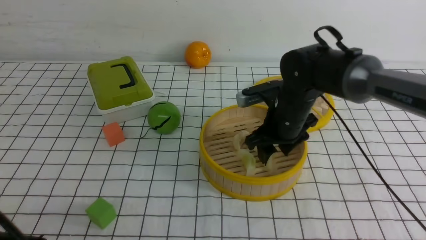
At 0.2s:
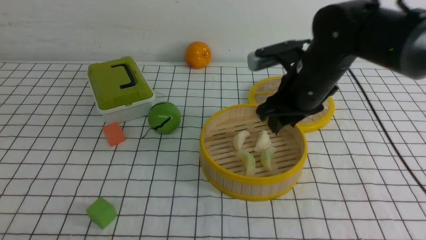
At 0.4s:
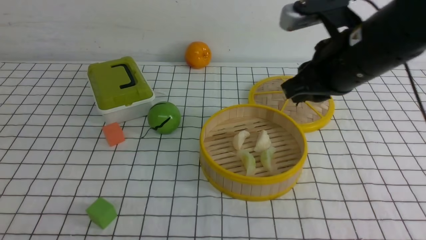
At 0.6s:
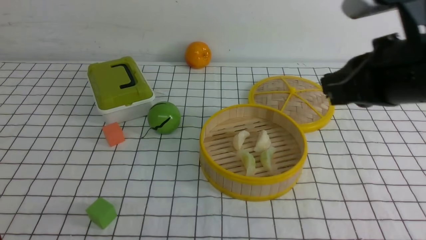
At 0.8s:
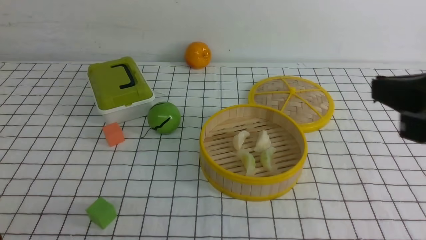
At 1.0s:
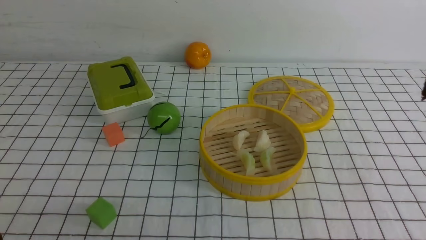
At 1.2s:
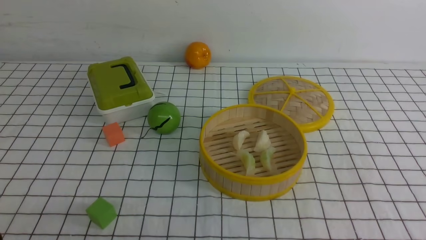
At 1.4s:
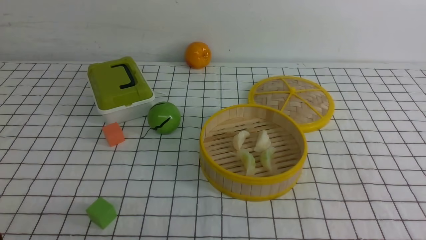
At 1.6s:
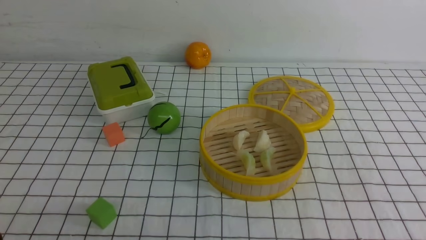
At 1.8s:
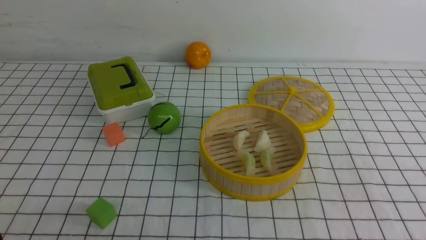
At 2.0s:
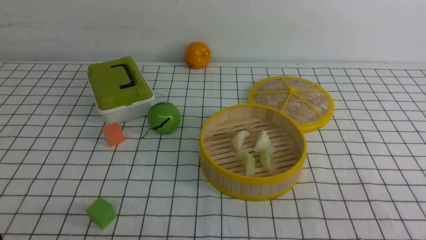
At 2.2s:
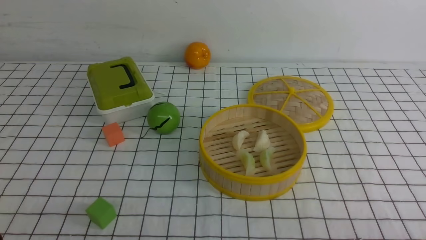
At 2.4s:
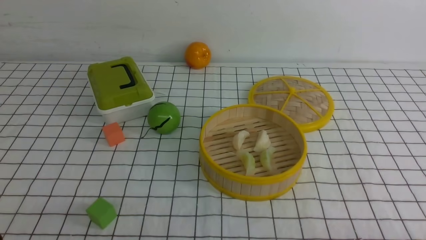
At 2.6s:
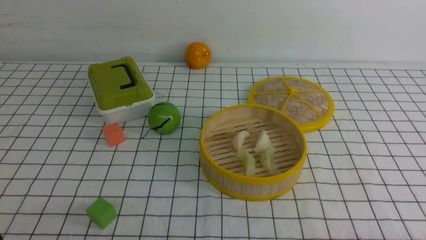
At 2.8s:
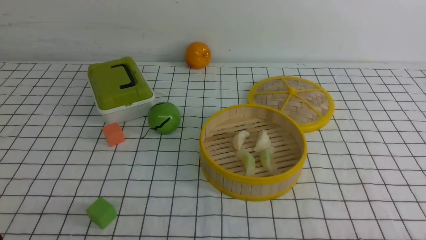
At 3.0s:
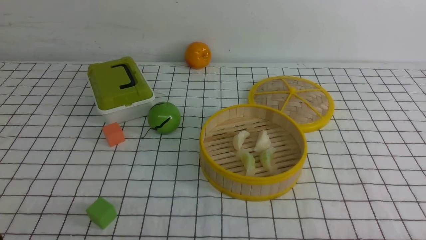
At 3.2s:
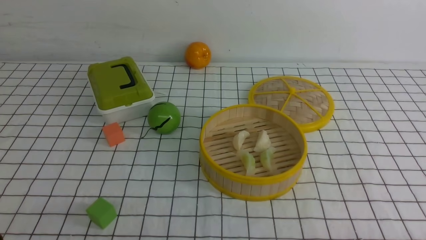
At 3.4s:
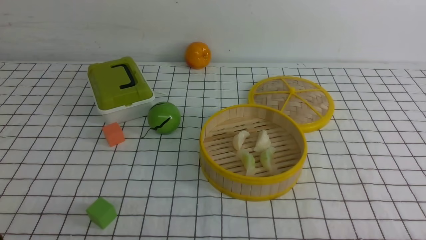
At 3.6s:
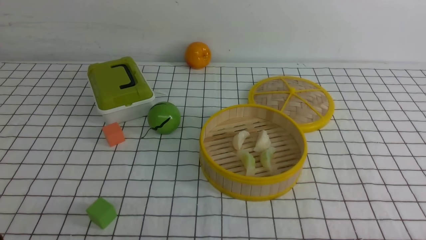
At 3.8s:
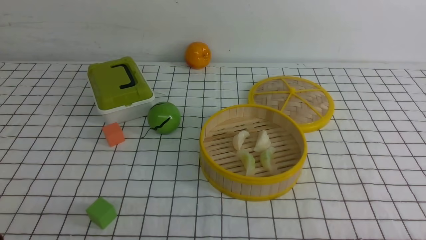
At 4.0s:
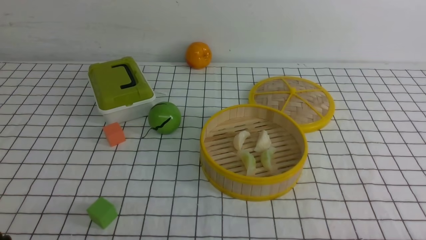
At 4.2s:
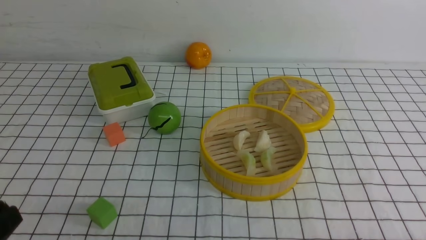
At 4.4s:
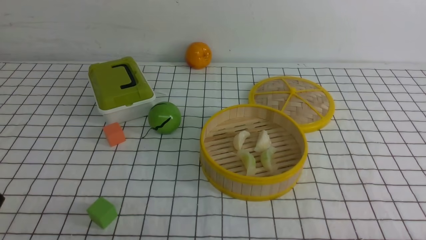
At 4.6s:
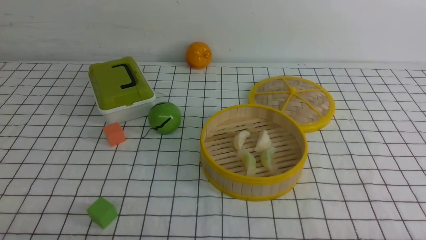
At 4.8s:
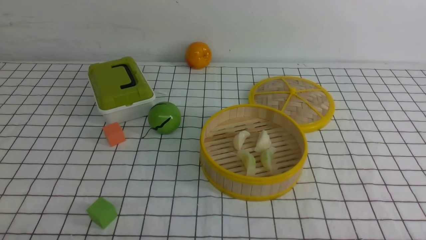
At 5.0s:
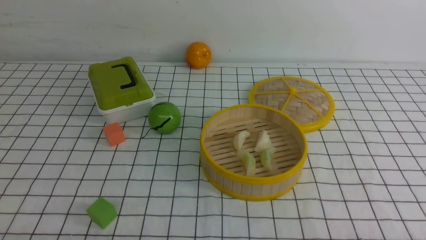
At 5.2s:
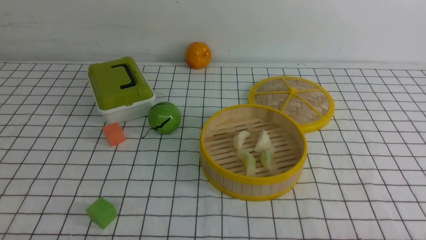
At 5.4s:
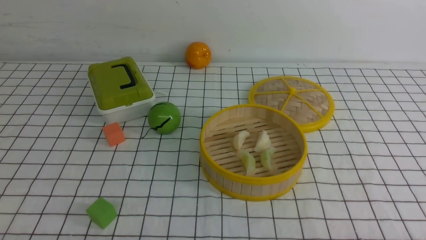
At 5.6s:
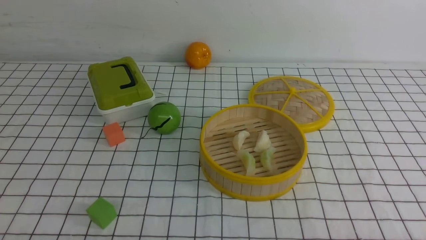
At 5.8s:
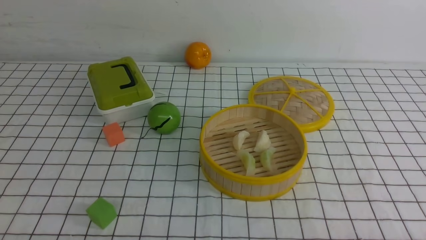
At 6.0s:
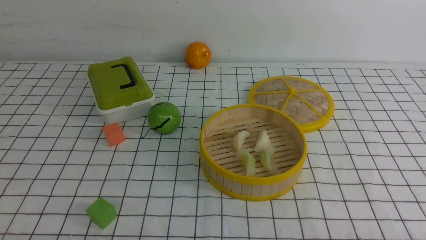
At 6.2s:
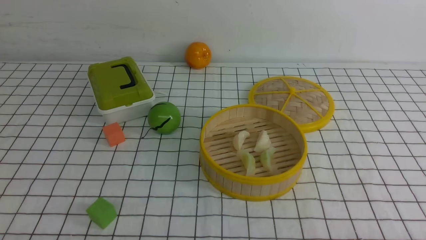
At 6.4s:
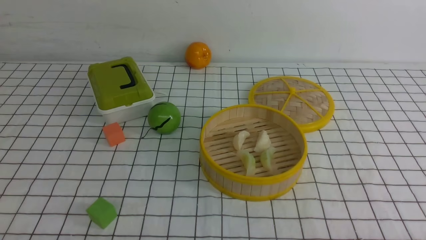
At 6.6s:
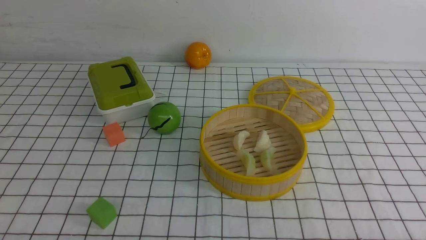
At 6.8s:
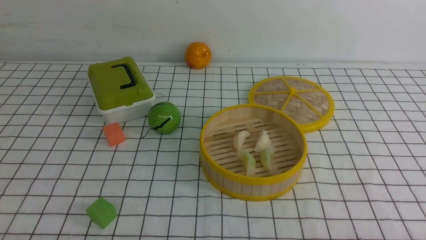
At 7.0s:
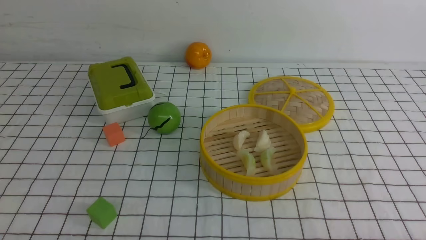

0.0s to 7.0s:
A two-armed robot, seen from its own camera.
Task of the whole recording: put the dumplings into the steamer on the table with the white tablecloth.
0.0s to 1.4s: The left gripper ends up roughly 5 cm from where it was, while the right gripper heads backward, upward and to the right, covering approximately 35 cm, and closes.
5.6s to 7.0s: Both grippers stay about where they are.

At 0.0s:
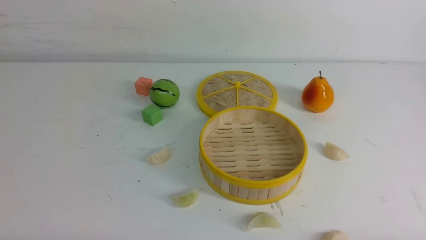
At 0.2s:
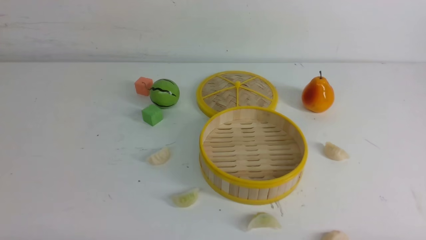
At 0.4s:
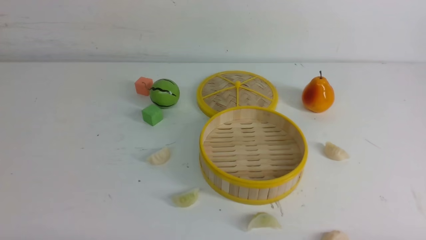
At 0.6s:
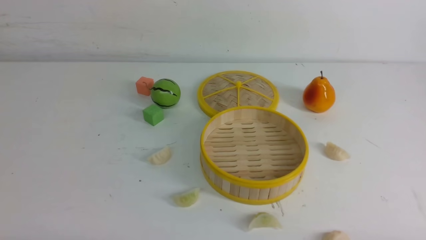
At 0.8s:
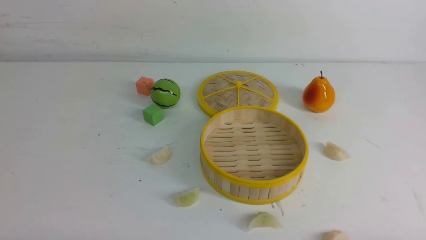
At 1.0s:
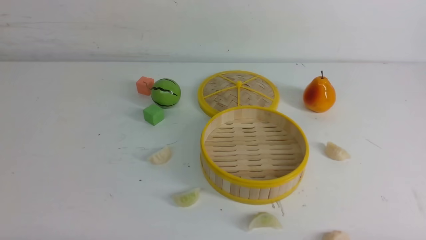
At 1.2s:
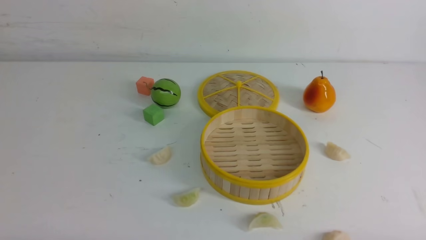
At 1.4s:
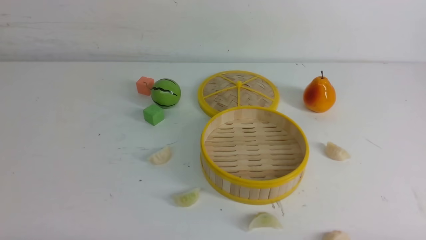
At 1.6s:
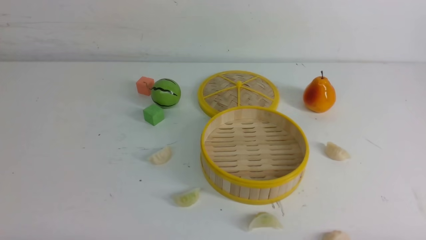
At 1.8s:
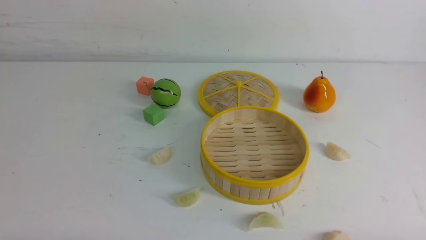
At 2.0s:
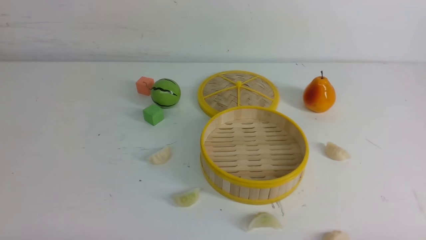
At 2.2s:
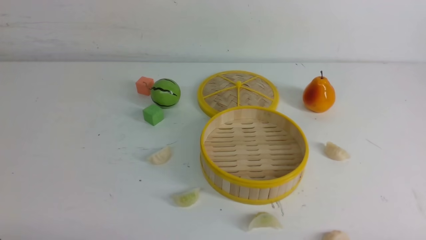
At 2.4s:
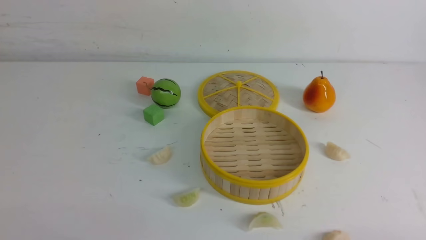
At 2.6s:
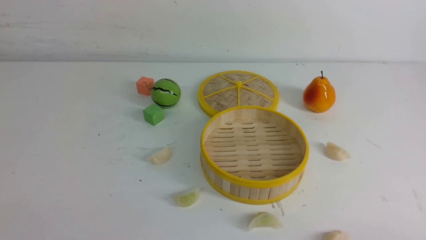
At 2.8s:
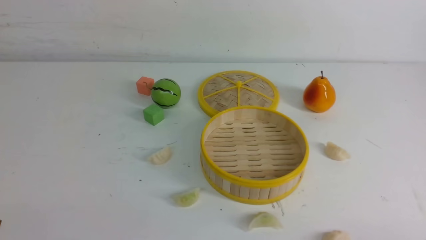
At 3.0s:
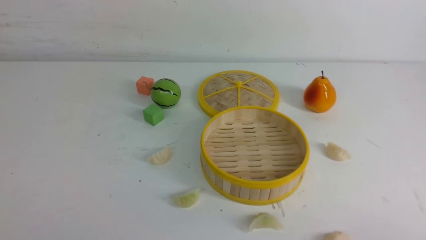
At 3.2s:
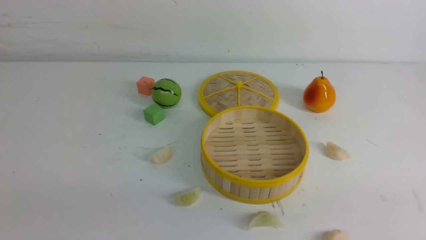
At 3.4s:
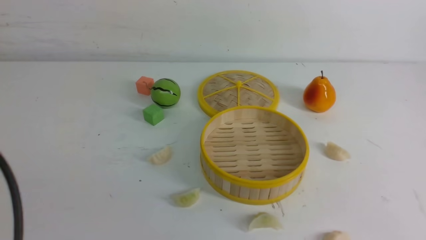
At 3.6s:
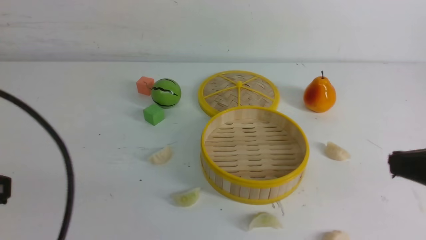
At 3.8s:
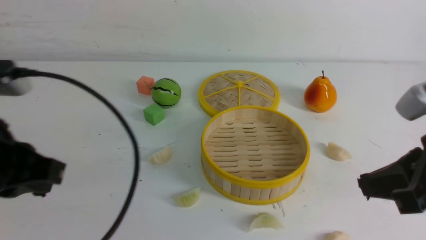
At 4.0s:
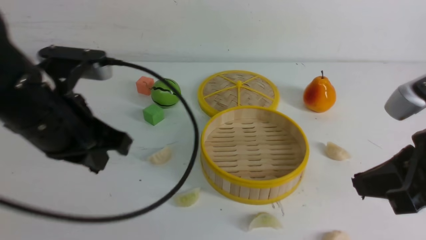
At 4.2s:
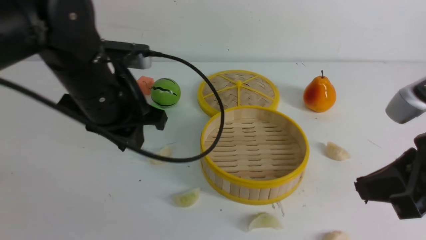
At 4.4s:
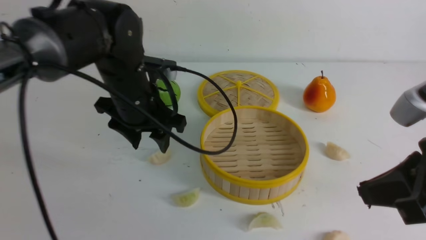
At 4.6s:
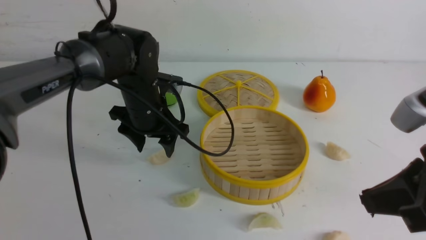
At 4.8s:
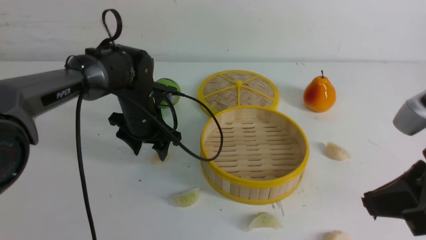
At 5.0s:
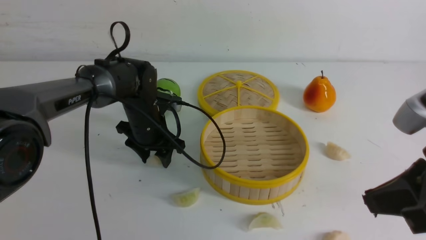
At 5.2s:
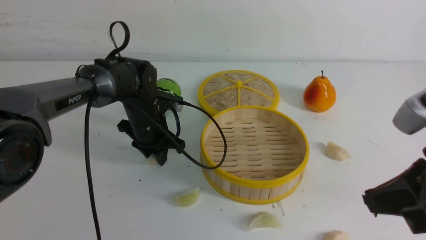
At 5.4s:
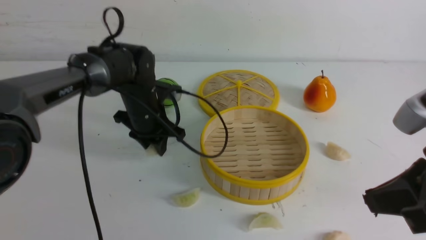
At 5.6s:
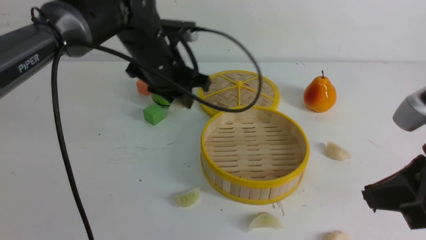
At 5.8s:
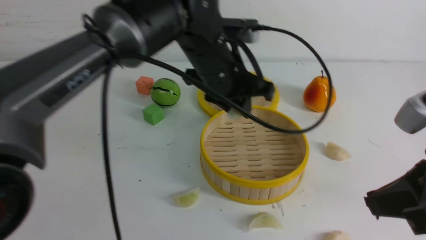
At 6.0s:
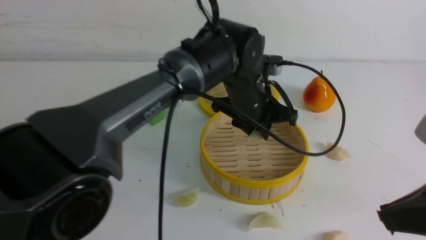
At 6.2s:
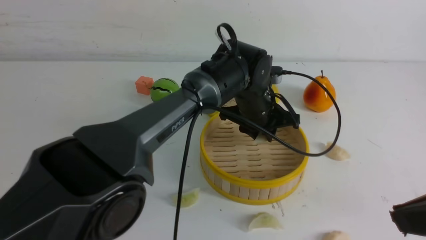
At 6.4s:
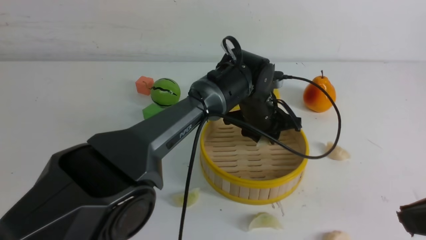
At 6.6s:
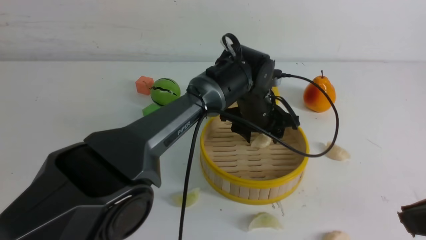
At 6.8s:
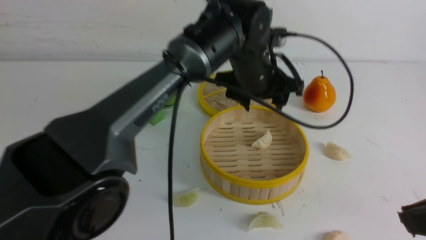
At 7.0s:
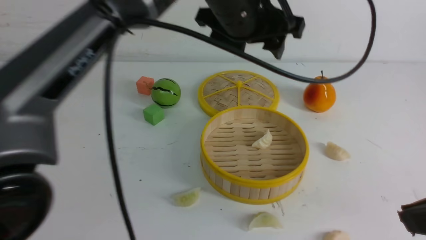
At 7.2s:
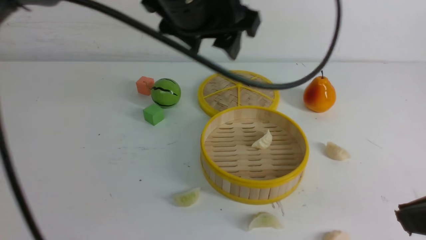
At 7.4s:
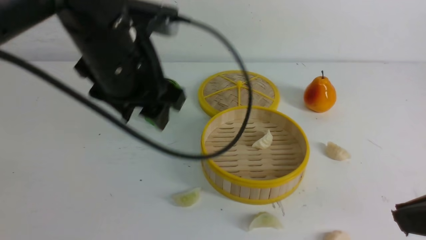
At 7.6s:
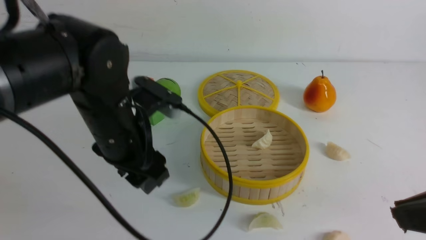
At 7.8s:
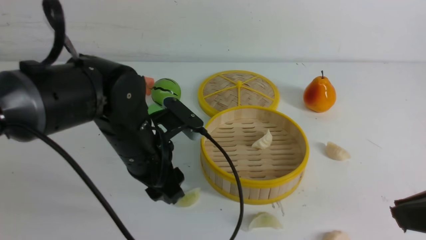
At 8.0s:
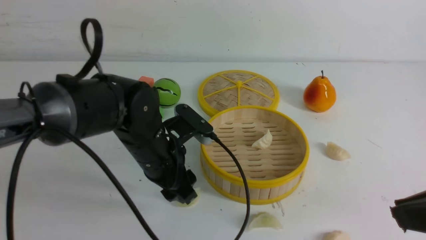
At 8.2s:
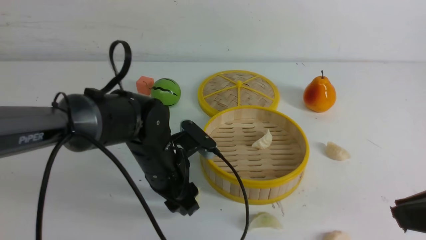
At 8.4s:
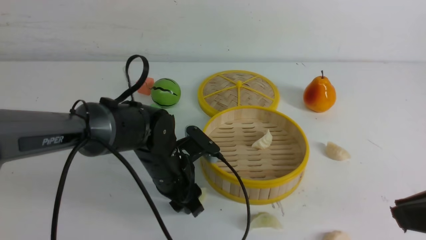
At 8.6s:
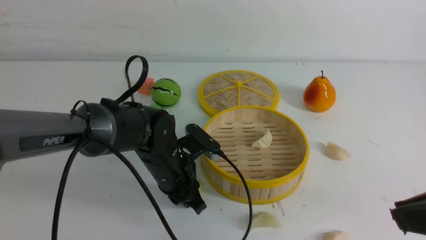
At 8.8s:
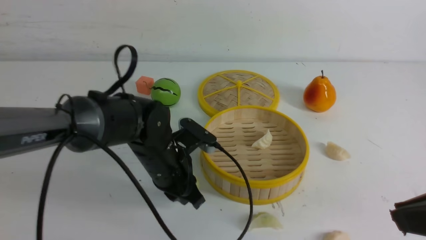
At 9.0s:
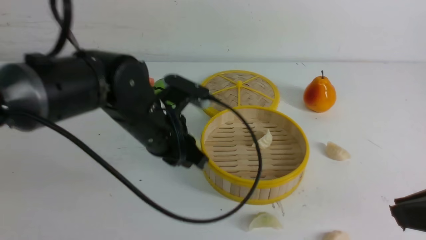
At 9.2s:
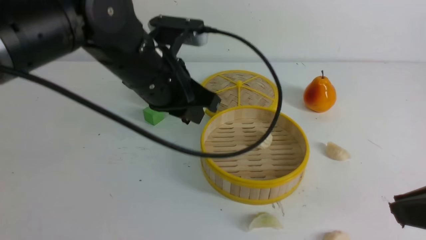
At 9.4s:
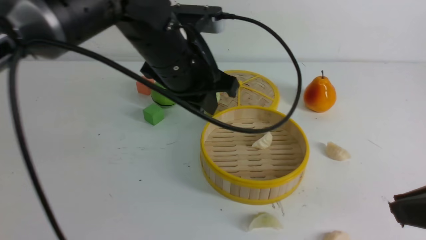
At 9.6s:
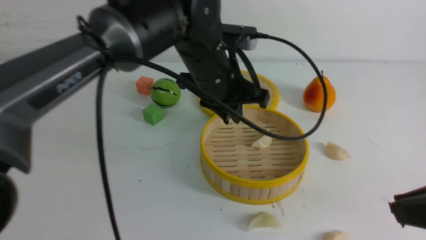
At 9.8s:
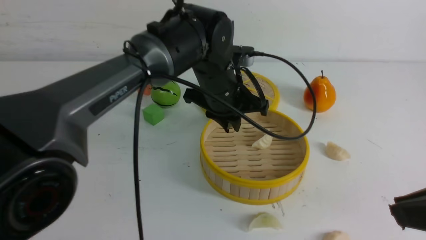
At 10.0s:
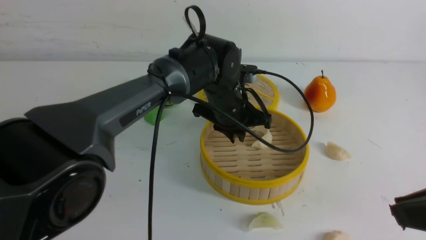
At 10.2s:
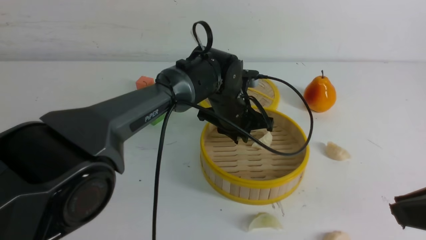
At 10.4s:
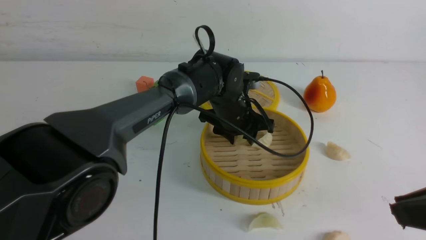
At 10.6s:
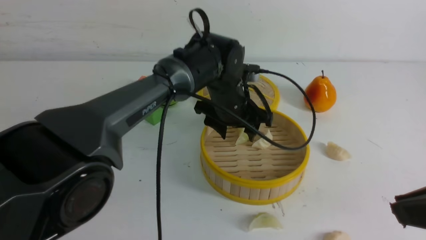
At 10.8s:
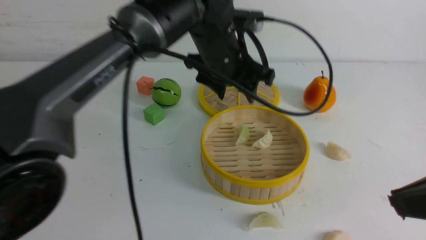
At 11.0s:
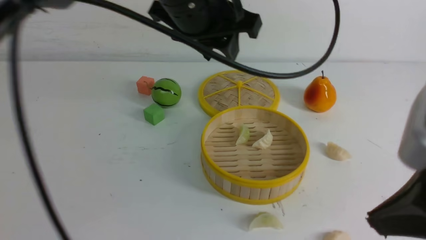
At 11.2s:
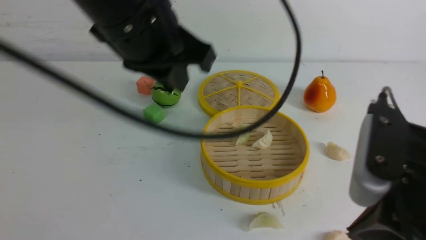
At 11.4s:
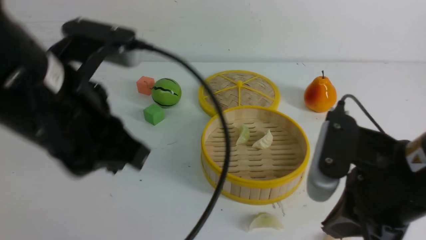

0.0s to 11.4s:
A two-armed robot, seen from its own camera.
Task of the whole recording: put the dumplings into the steamer on the white table.
Step, 0.0s to 5.2s: use the left arm to grab a dumpling.
Step, 5.4s to 6.4s: use the left arm to put the dumpling into the steamer.
Step, 6.6s to 8.6s: use the left arm to grab a dumpling.
Step, 8.8s to 10.4s: use the left arm to put the dumpling into the steamer.
0.0s to 1.4s: Both grippers stay put.
2.8s to 4.2s: The right gripper travels upward, forward and to the left by some 20 cm, and closes, while the left gripper moves forward and to the right, roughly 30 cm, and closes and opens again.
4.2s to 5.6s: The left gripper travels forward and to the right by approximately 10 cm, moves roughly 15 cm downward and comes back, and opens, then closes again.
5.6s to 7.2s: The left gripper is displaced upward and backward by approximately 15 cm, and opens.
7.2s to 8.6s: The left gripper is displaced downward by approximately 25 cm, and closes up.
8.6s to 10.0s: The left gripper travels to the right, forward and upward by about 15 cm.
10.0s to 11.4s: The right gripper is displaced to the left and forward by roughly 10 cm. Meanwhile the left gripper shifts roughly 30 cm backward, to the left and upward, and opens, then closes again.
